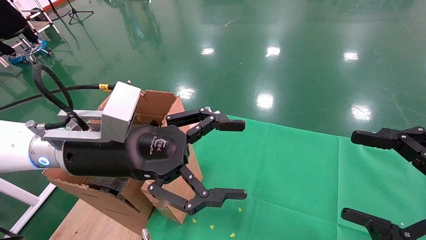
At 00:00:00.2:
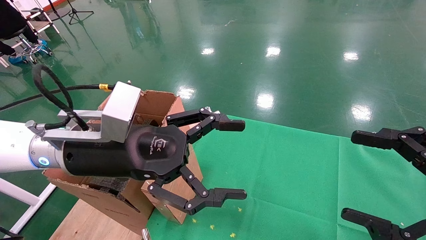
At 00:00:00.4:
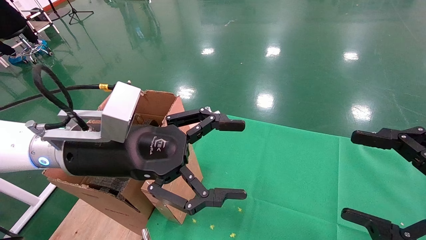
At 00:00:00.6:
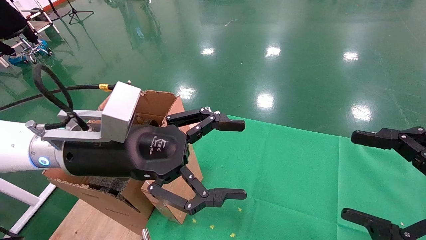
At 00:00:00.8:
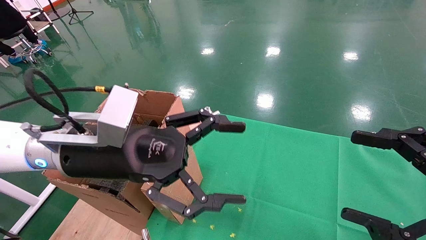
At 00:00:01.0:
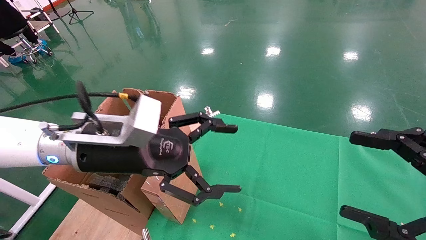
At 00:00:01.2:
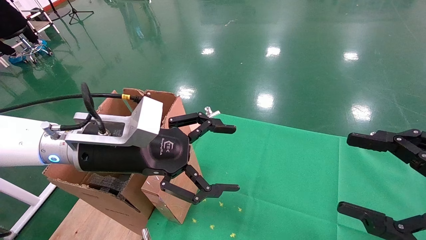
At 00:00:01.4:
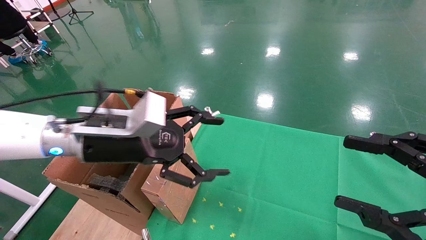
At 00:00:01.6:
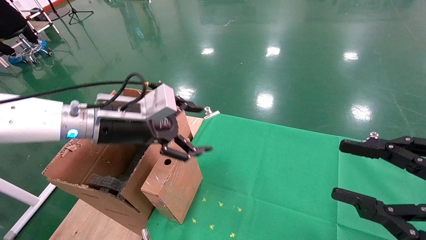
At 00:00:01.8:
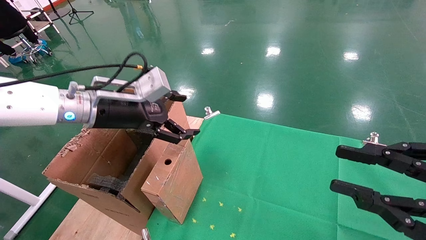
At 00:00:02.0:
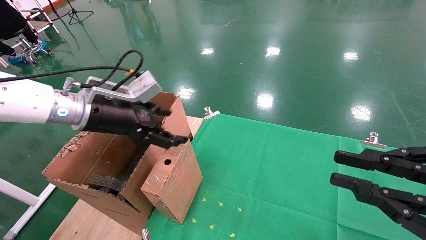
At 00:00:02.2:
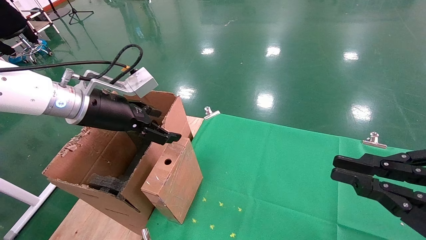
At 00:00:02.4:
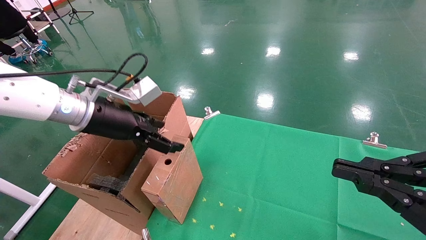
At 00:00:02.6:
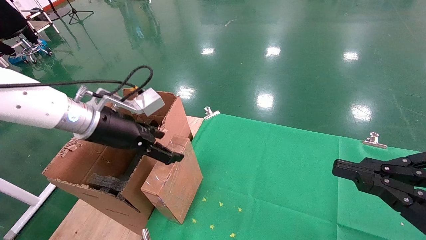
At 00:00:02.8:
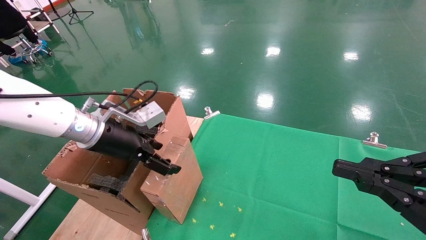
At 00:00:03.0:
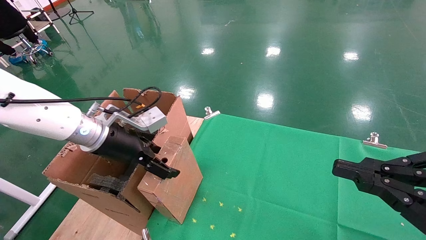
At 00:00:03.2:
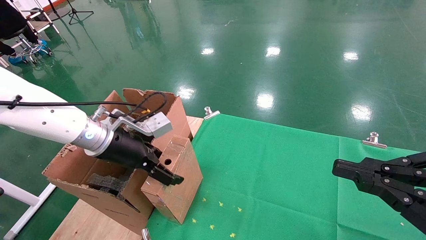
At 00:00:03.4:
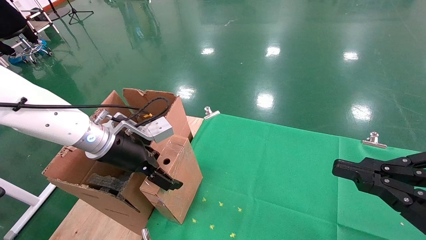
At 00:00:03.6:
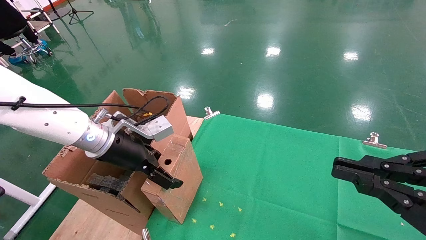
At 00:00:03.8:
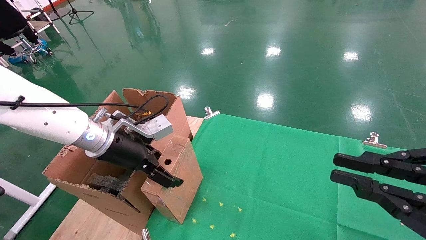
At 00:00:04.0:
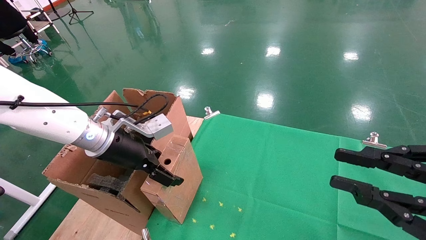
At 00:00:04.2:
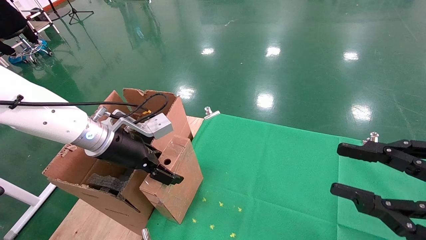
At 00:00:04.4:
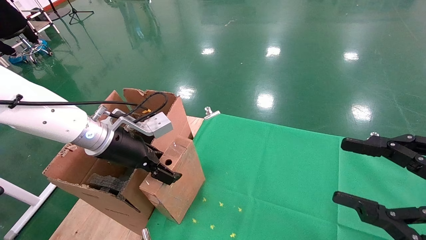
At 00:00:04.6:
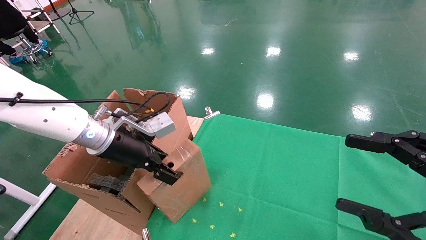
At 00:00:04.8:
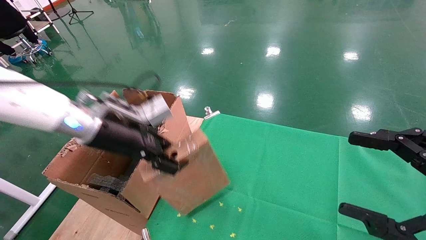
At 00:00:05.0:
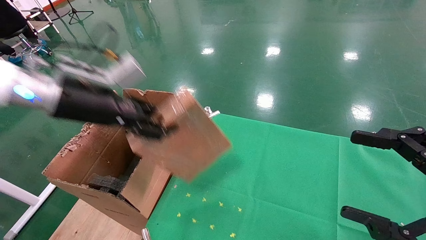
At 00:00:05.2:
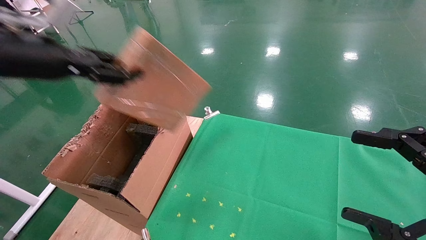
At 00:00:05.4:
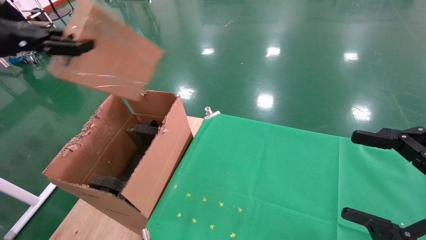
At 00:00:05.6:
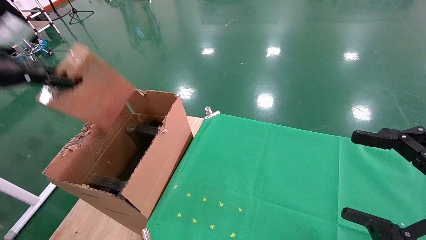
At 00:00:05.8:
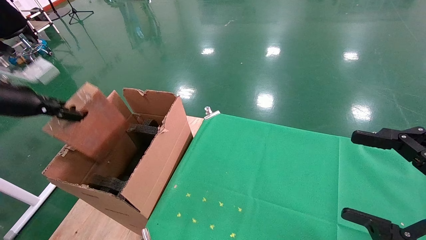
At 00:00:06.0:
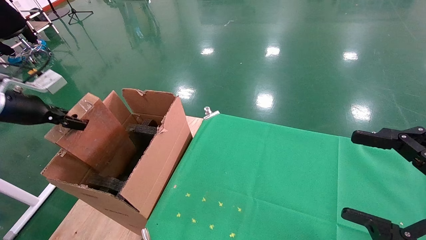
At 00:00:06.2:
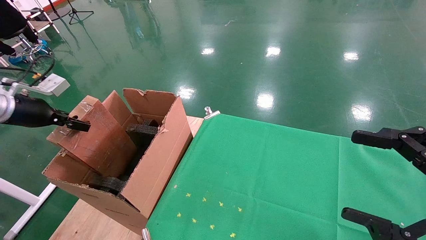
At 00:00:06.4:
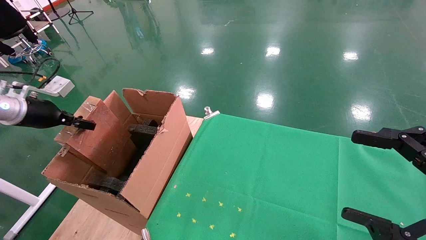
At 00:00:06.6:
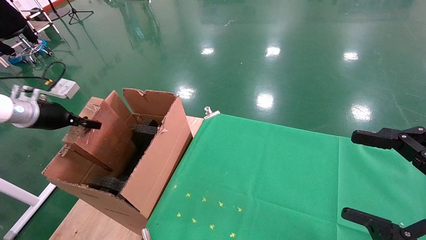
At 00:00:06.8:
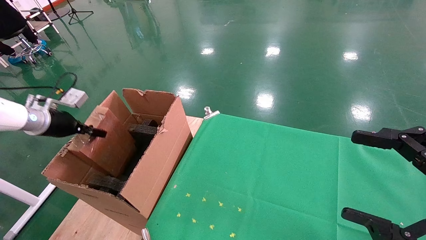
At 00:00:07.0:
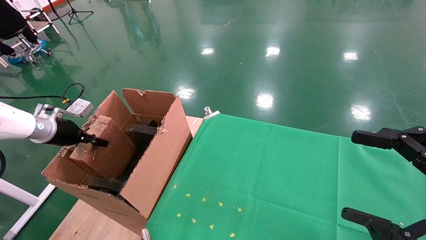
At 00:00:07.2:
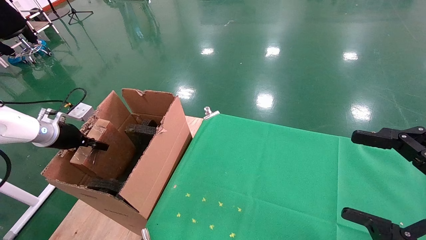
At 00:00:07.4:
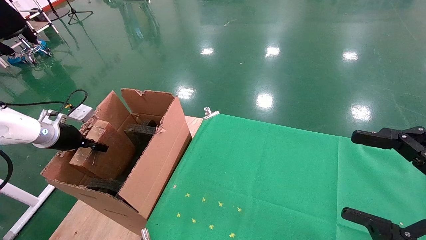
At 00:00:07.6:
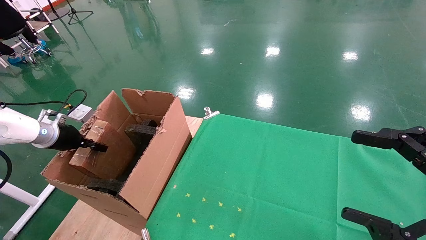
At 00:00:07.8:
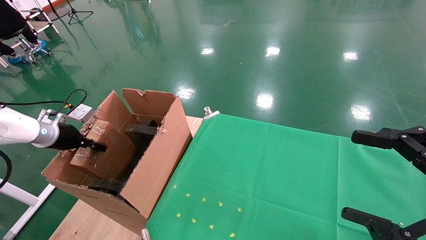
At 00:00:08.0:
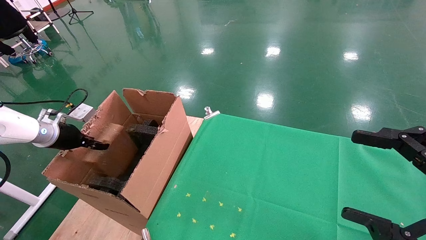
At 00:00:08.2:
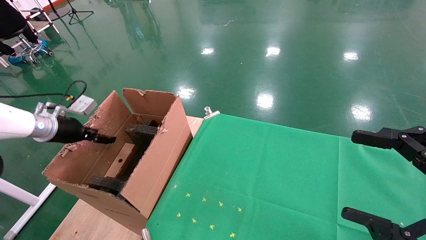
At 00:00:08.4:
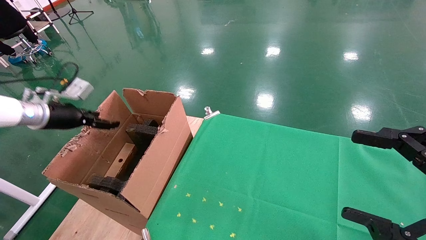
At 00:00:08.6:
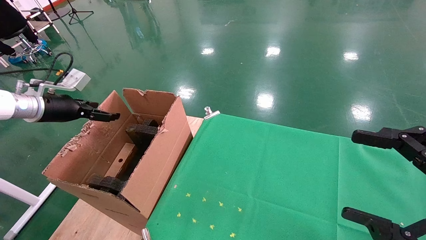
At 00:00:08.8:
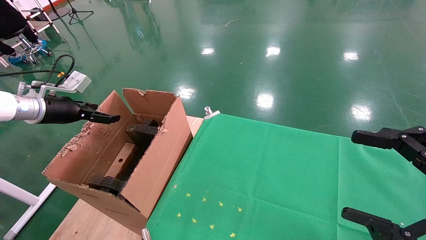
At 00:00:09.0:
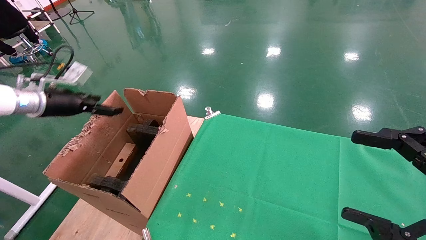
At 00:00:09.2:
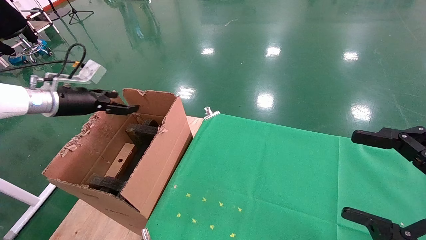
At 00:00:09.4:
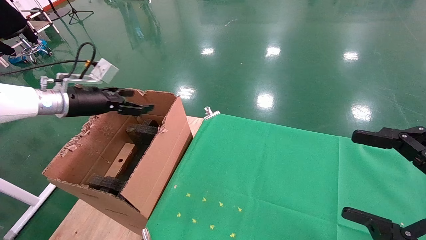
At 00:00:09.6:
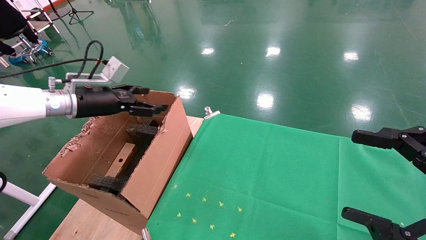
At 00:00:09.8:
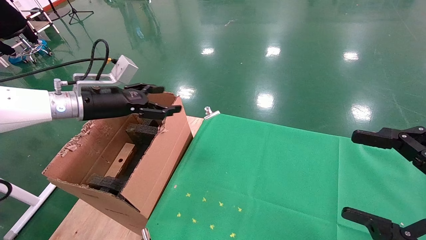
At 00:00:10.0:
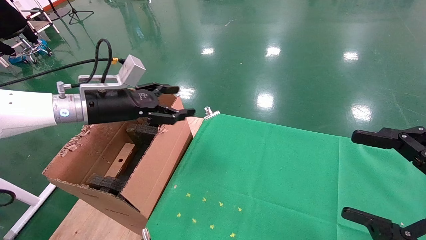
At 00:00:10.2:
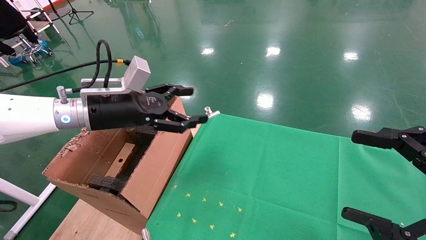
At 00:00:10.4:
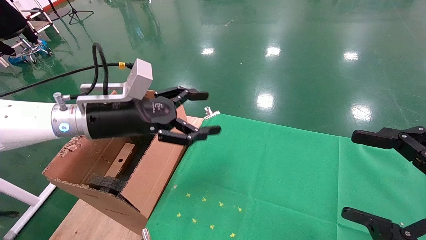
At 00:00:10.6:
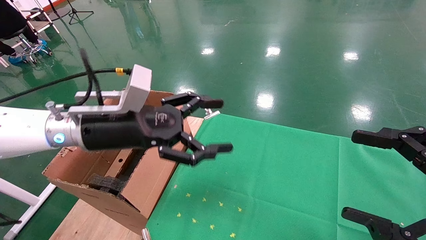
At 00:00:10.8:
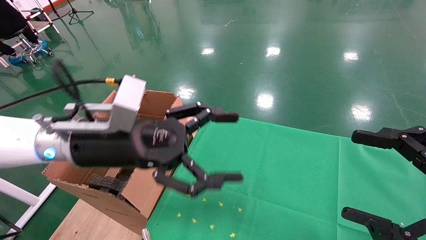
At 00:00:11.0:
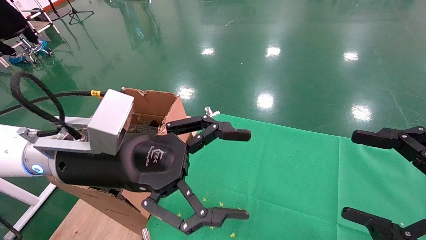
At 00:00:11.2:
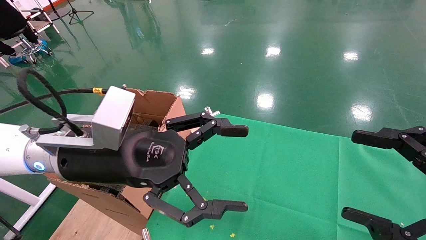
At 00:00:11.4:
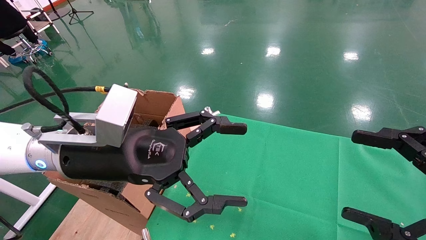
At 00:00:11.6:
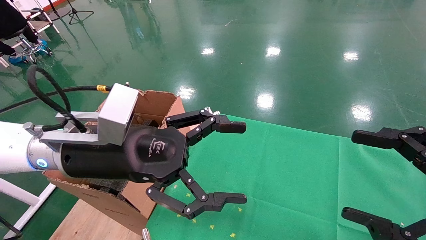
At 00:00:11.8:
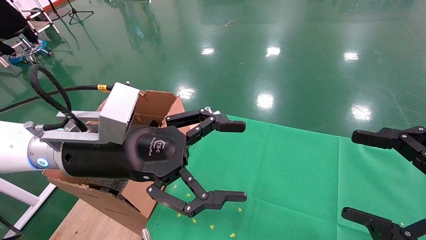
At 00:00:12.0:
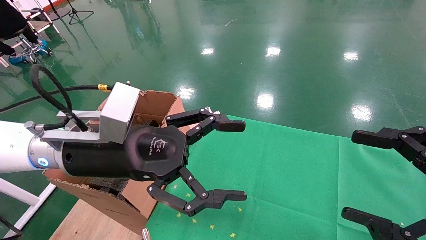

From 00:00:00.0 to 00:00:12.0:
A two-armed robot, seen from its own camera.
Task of the whole recording: using a robotic arm to pick up a cardboard box and palace it the carton.
Step, from 00:00:01.0 to 00:00:04.6: Pick up the mouse and the power cord paper box.
Step, from 00:00:04.8 to 00:00:08.0: Place the mouse and the power cord paper box into the container.
From 00:00:00.0 to 00:00:01.6: The left gripper travels forward by roughly 5 cm.
From 00:00:01.6 to 00:00:03.0: The right gripper closes up.
From 00:00:03.0 to 00:00:04.4: The right gripper opens its fingers; the left gripper closes its fingers.
From 00:00:04.4 to 00:00:06.0: The left gripper is displaced to the left by about 25 cm, and closes. Meanwhile the right gripper opens up.
From 00:00:06.0 to 00:00:07.6: The left gripper goes approximately 15 cm downward and forward.
From 00:00:07.6 to 00:00:09.0: The left gripper shifts roughly 10 cm upward, and opens its fingers.
From 00:00:09.0 to 00:00:10.4: The left gripper shifts about 20 cm to the right.
From 00:00:10.4 to 00:00:12.0: The left gripper moves backward and to the right, some 10 cm.

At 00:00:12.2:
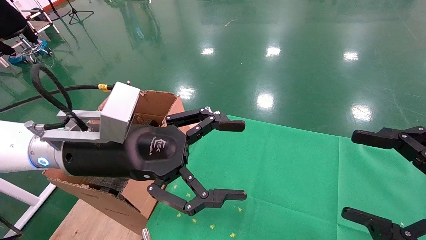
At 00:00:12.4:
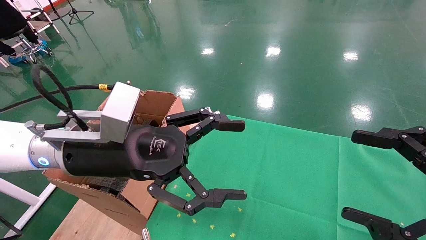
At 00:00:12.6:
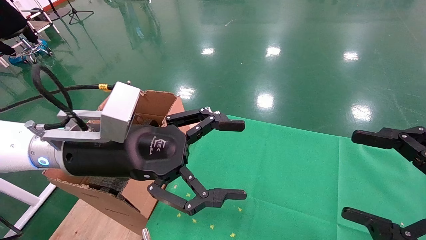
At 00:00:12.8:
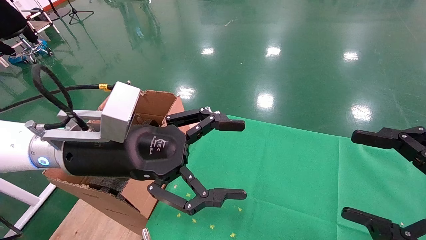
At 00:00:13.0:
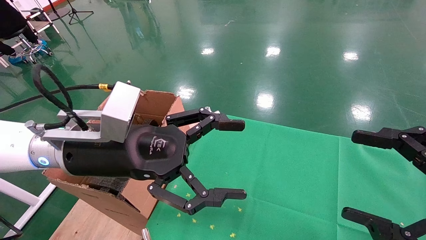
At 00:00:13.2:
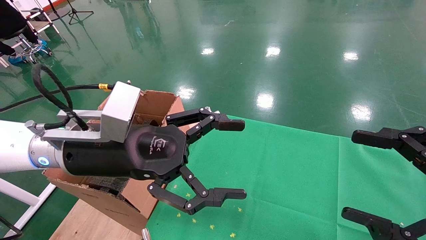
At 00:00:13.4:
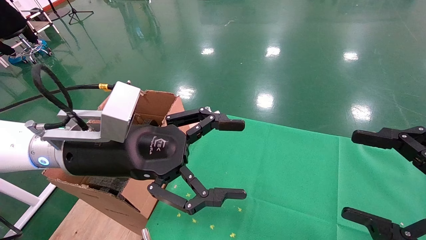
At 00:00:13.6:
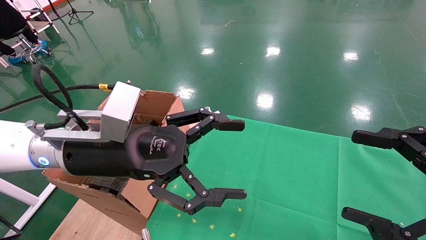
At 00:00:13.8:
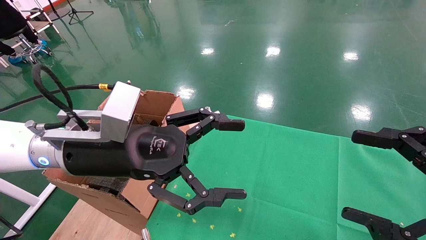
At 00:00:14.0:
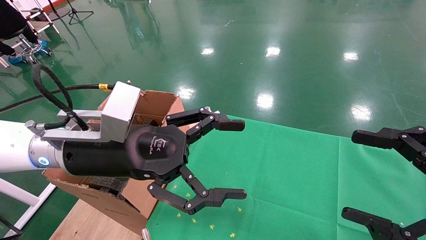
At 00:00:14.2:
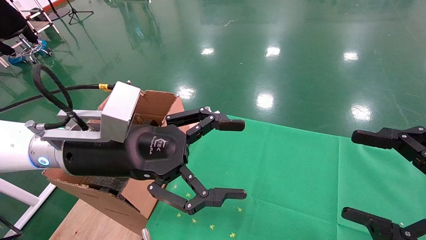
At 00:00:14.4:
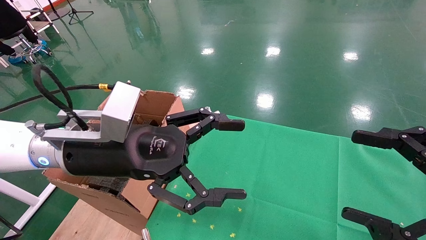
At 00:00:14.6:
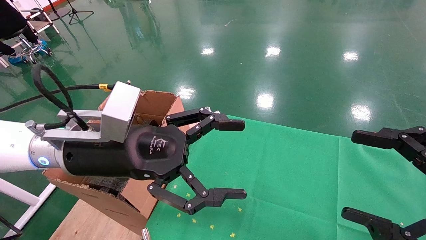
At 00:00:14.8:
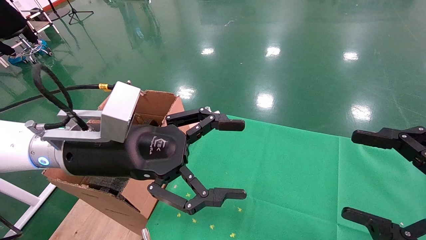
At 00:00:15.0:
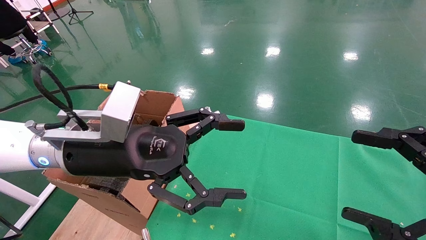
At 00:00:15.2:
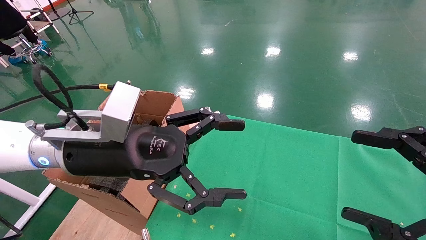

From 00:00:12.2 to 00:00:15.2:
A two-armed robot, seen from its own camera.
Task of the whole recording: using a robotic arm to pick up a cardboard box and palace it the carton.
From 00:00:12.2 to 00:00:15.2: Both grippers stay put.
